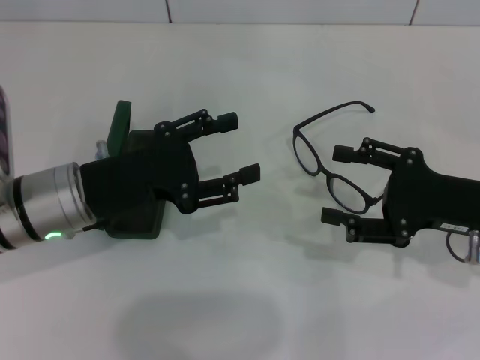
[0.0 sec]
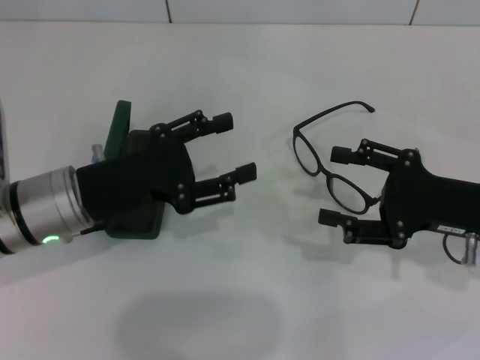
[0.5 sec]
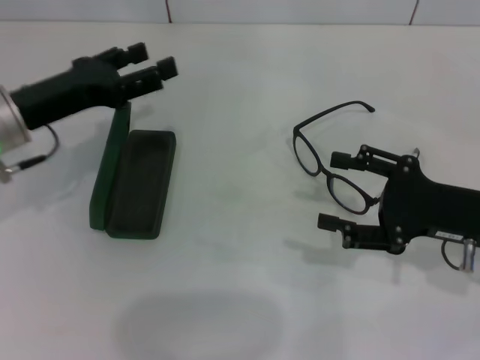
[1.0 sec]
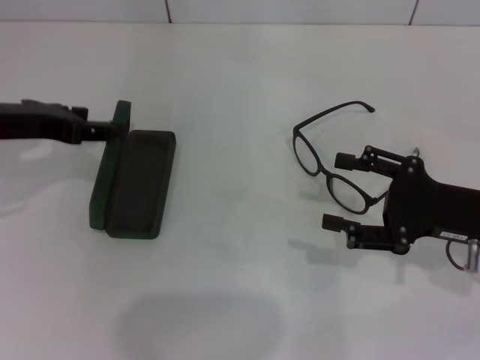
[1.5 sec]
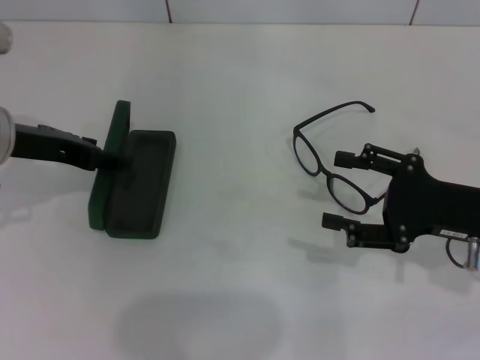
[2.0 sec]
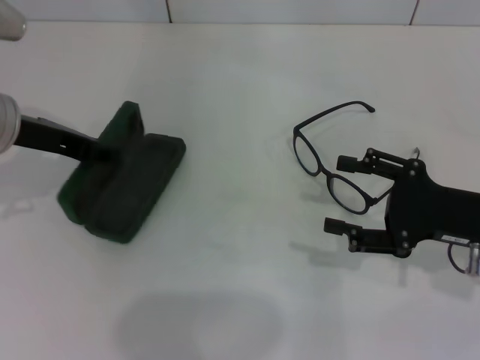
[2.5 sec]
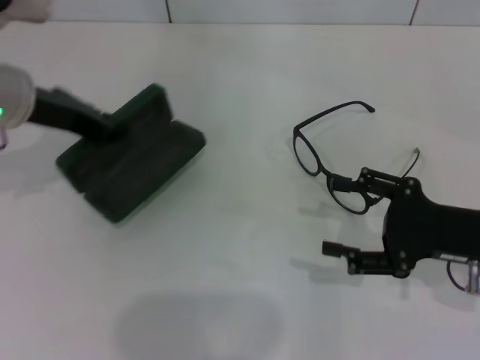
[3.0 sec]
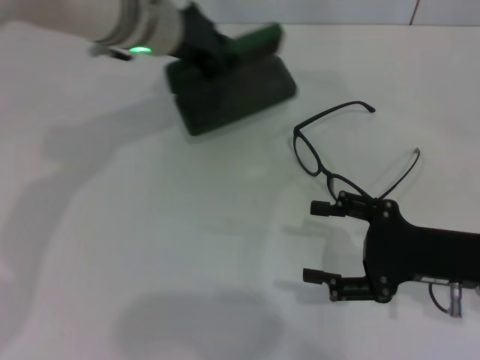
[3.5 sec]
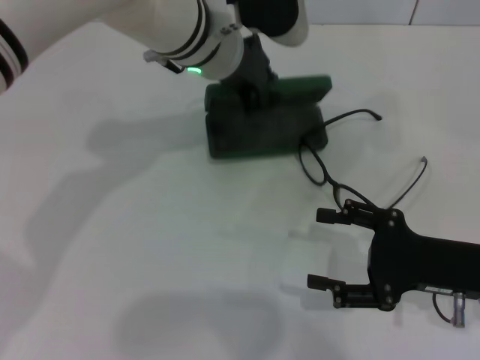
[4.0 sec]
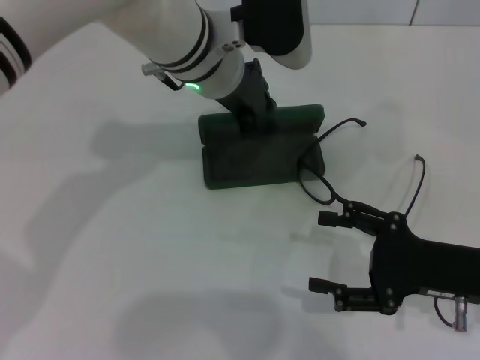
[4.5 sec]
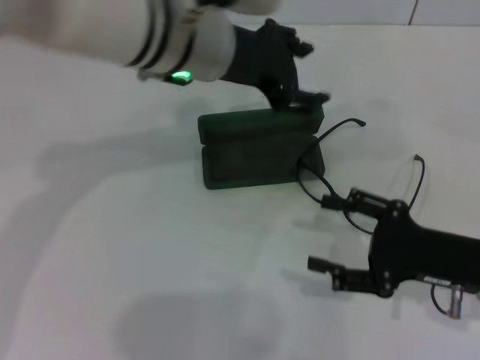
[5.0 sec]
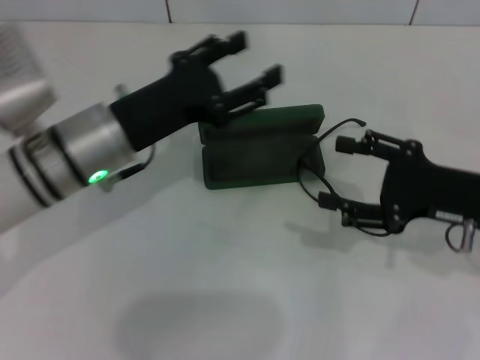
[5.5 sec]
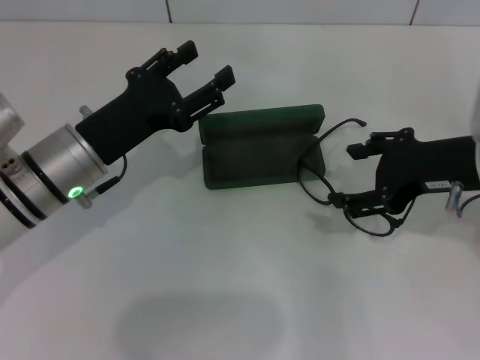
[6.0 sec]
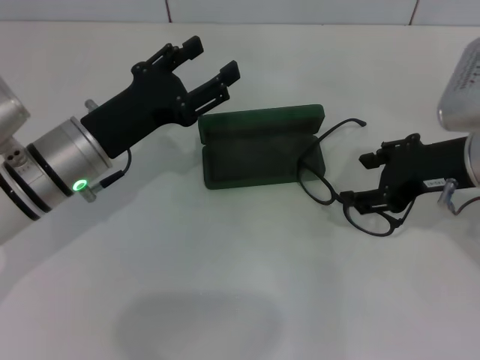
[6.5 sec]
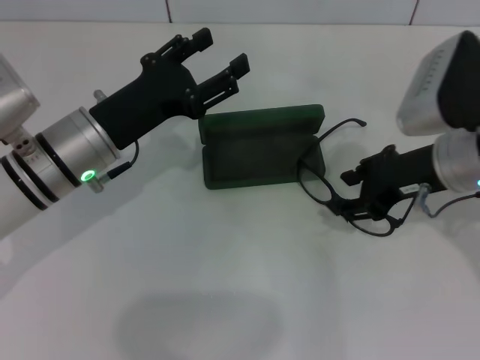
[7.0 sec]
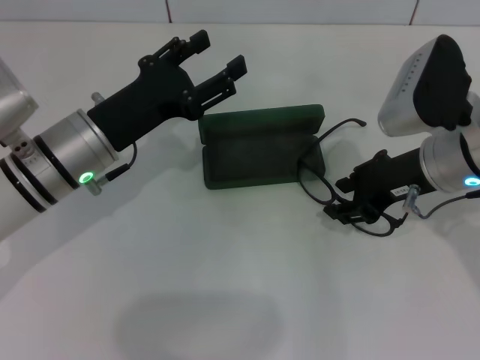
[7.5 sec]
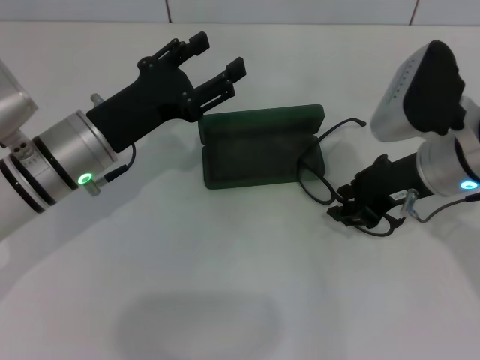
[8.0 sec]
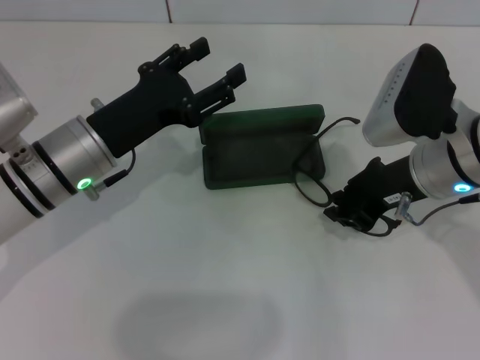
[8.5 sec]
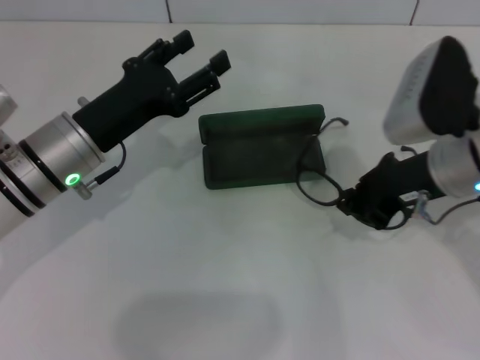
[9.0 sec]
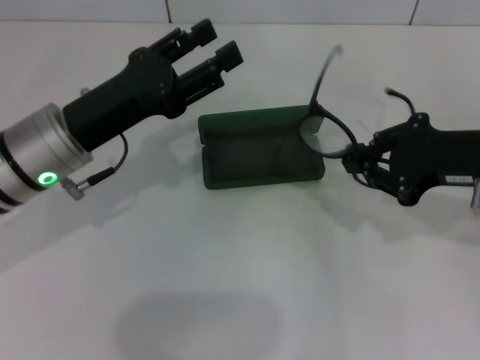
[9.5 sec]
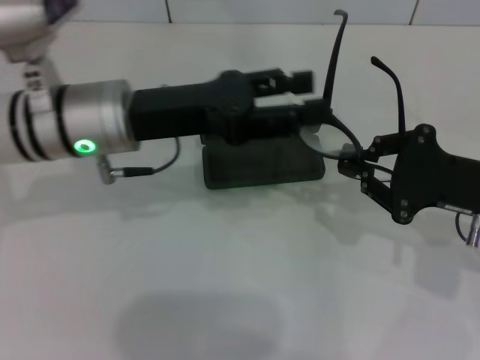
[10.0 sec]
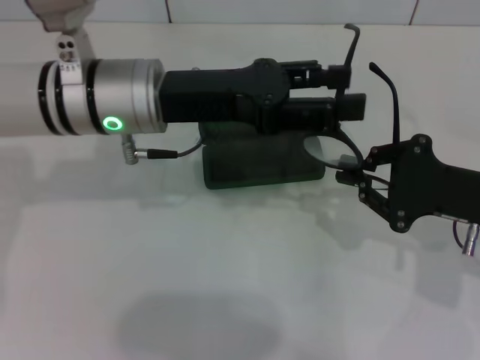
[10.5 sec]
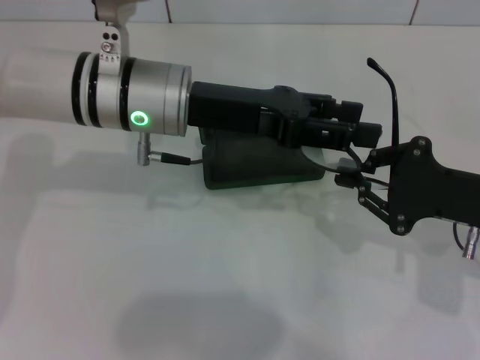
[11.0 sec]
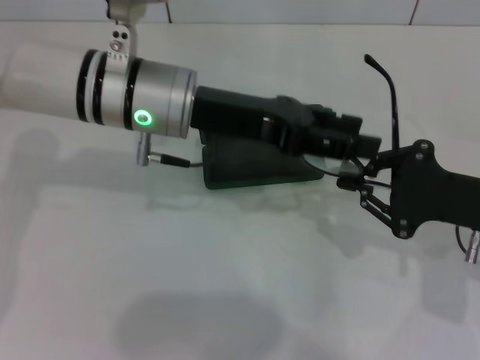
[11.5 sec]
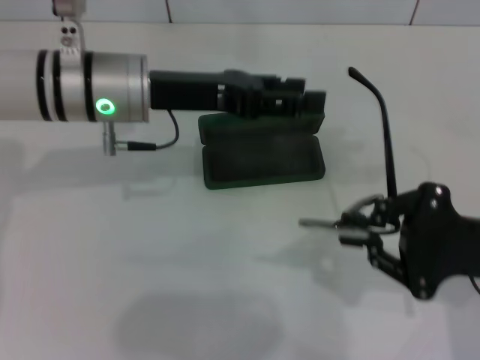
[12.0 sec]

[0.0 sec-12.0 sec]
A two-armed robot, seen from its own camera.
Step, 0.0 sec to 2.0 sec: Grab the glasses case with your left hand.
Step, 3.0 sec to 4.0 sec: Place the glasses case in the center of the table with your left hand.
Step, 5.0 sec to 8.5 sec: Grab the eyeglass frame with your right hand.
0.0 sec to 2.0 sec: The left gripper moves upward and to the left, about 10 cm.
2.0 sec to 4.0 sec: The left gripper goes approximately 20 cm to the right and forward, and closes.
4.0 sec to 6.0 sec: The left gripper is displaced to the left, backward and downward by about 20 cm, and opens up; the right gripper is displaced upward and forward by approximately 10 cm.
6.0 sec to 8.0 sec: The right gripper ends up some 5 cm from where it was, and closes its fingers.
8.0 sec to 10.0 sec: The left gripper heads upward, covering about 5 cm; the right gripper is displaced to the right and backward by approximately 10 cm, and closes.

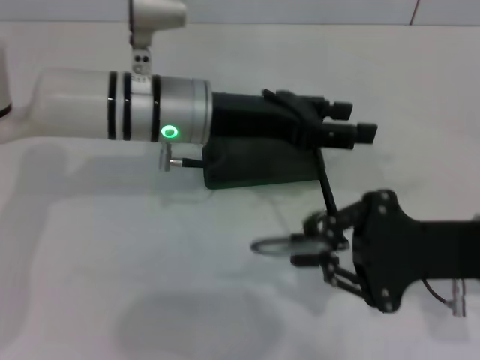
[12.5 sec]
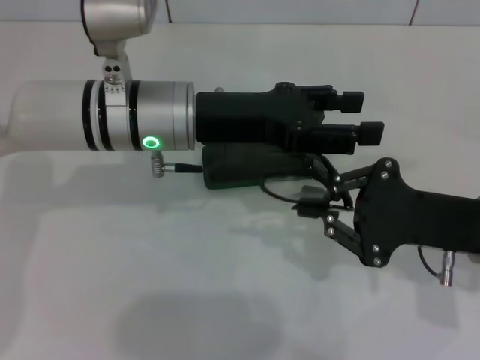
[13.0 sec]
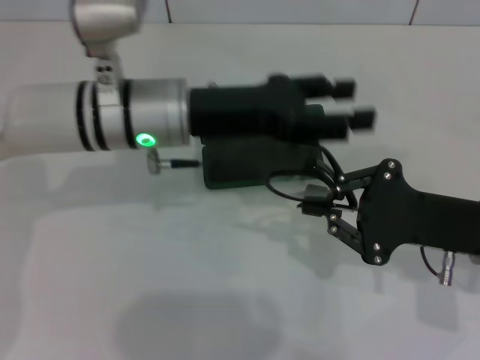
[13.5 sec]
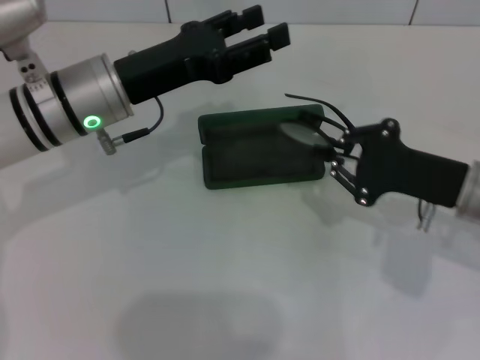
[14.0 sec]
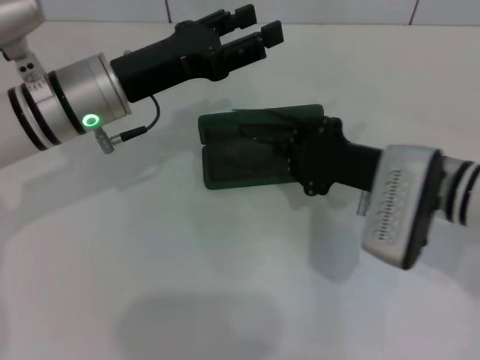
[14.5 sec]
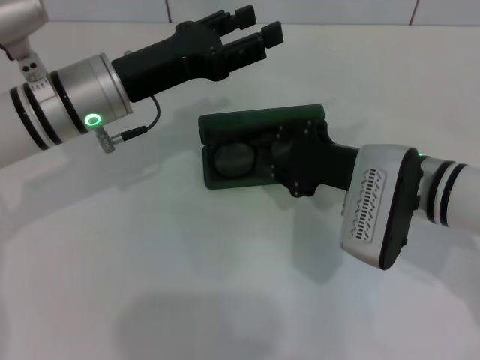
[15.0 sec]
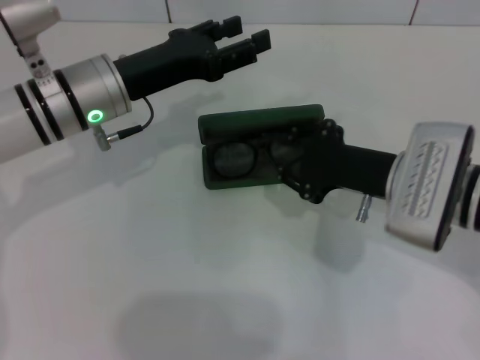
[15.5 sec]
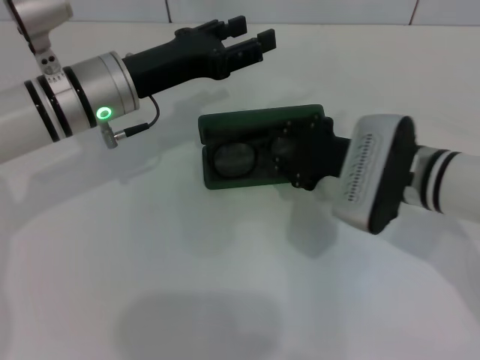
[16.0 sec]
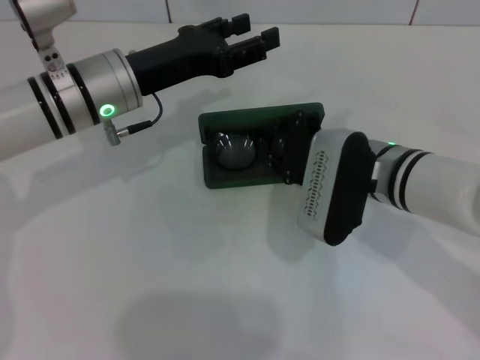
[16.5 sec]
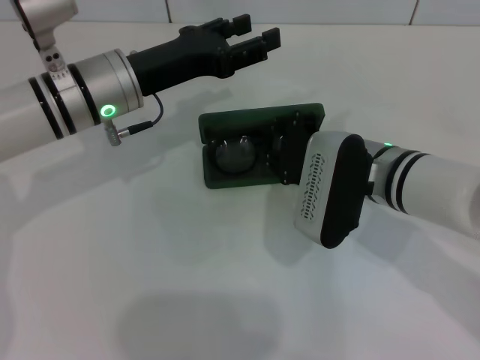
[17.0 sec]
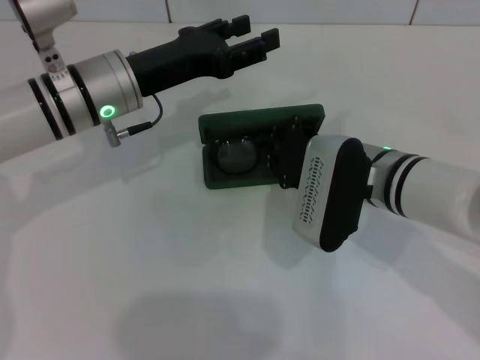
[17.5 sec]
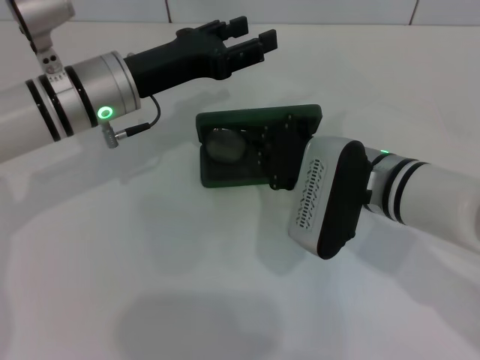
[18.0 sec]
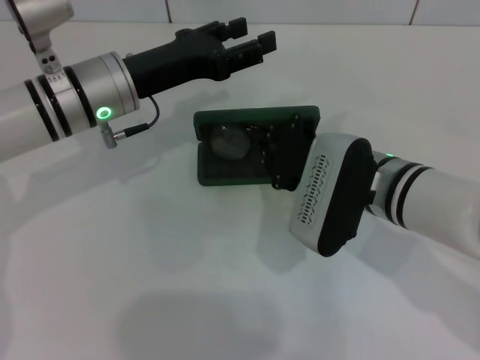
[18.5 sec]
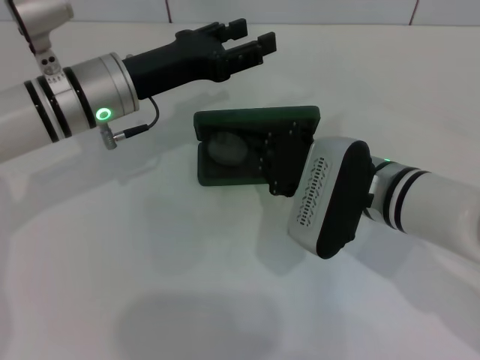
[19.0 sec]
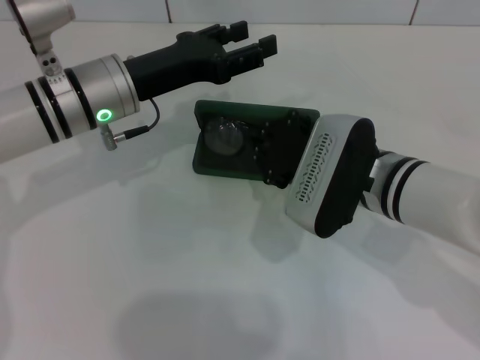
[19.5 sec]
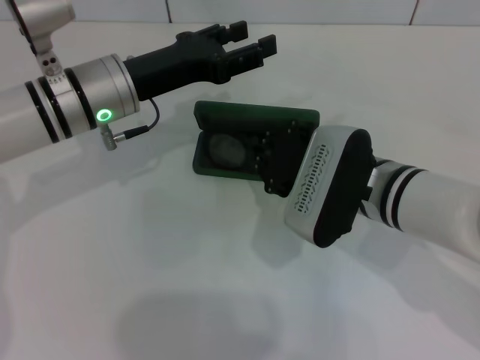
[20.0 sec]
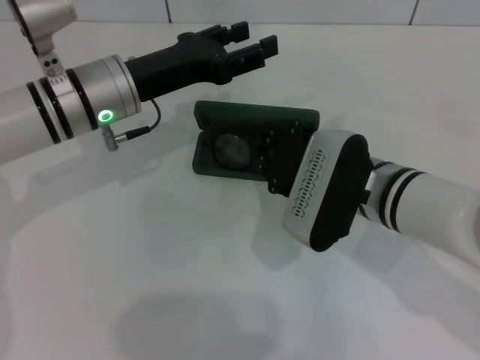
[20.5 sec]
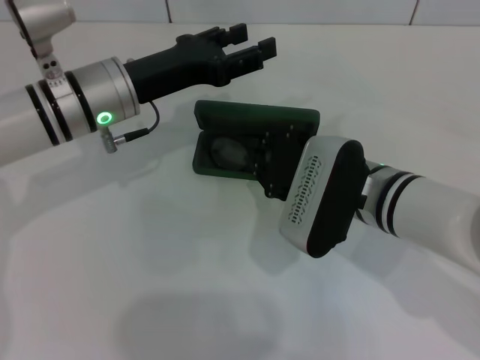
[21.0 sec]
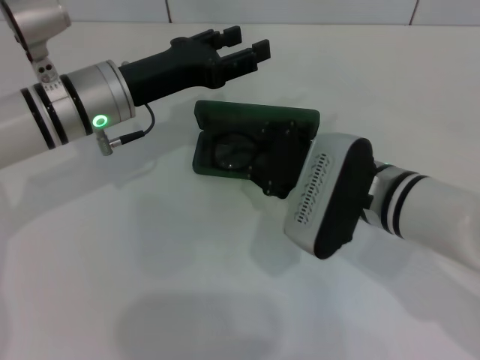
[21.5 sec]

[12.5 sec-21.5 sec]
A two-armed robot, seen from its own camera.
Step, 13.5 sec to 21.0 sec: Put the glasses into the case with your right hand.
12.5 sec to 14.5 sec: The right gripper heads forward and to the left, covering about 10 cm. The left gripper goes roughly 5 cm to the left.
14.5 sec to 19.5 sec: The grippers stay close to where they were, moving slightly.
19.5 sec to 21.5 sec: The right gripper opens its fingers.

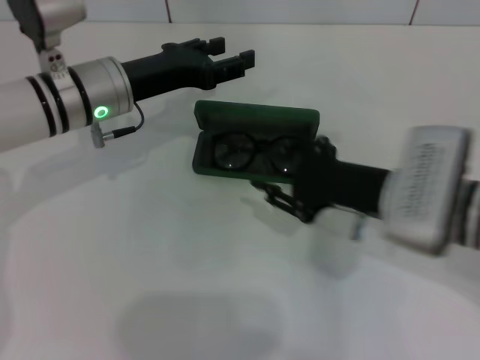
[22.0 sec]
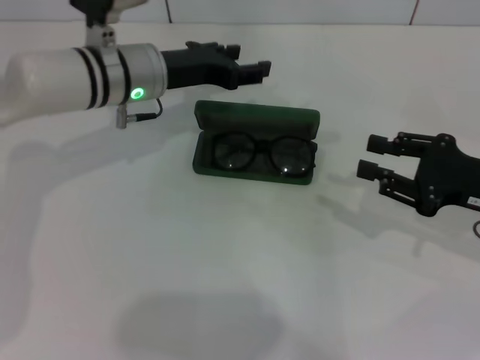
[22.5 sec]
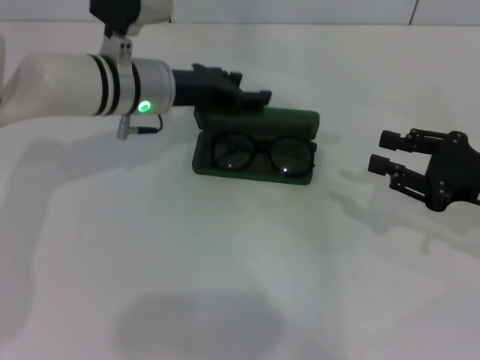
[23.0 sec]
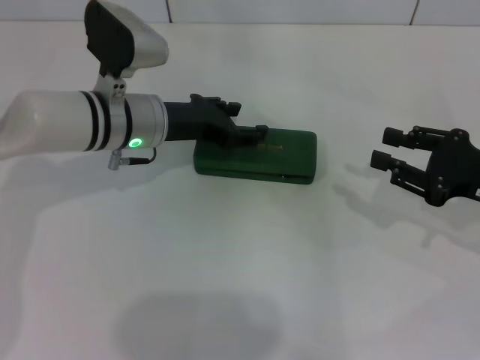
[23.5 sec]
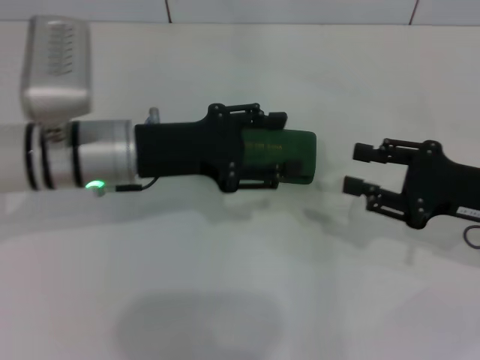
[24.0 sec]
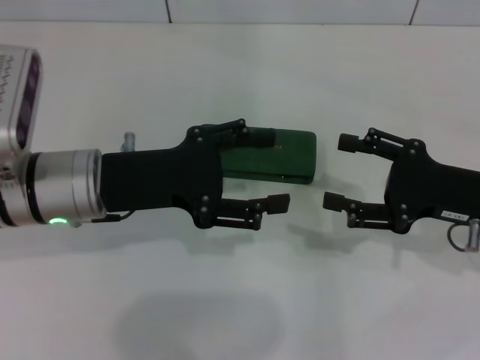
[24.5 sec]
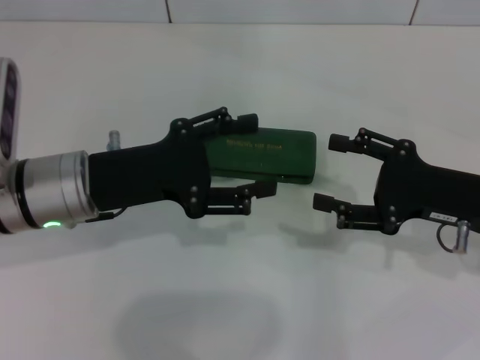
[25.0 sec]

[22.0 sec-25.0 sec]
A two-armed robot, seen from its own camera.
Step, 22.0 sec to 23.0 sec: Close the glasses case with your left hand.
22.0 sec to 23.5 sec: The right gripper travels to the right by roughly 15 cm.
23.5 sec to 25.0 sec: The left gripper is displaced backward by approximately 10 cm. Meanwhile the right gripper opens its fingers.
